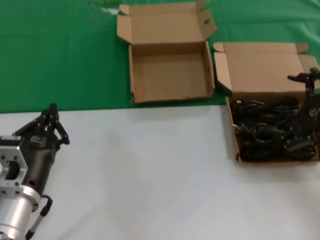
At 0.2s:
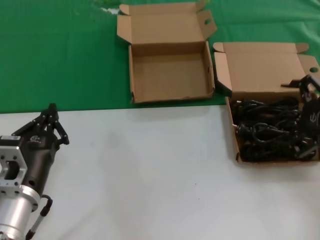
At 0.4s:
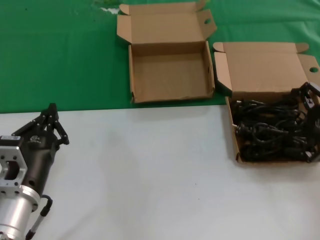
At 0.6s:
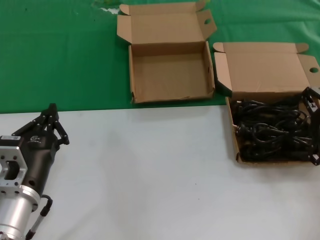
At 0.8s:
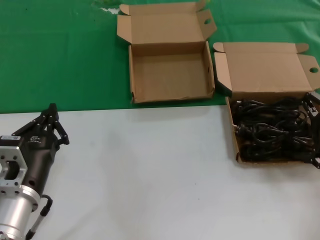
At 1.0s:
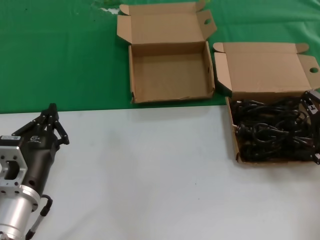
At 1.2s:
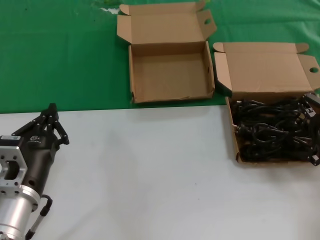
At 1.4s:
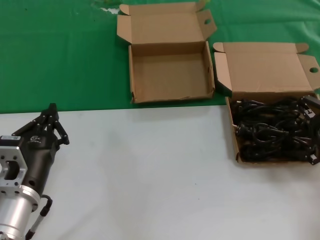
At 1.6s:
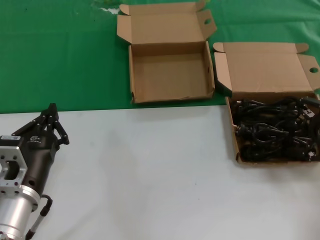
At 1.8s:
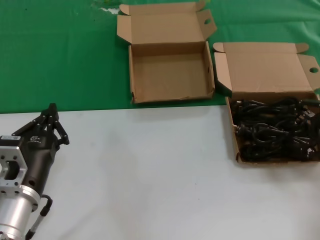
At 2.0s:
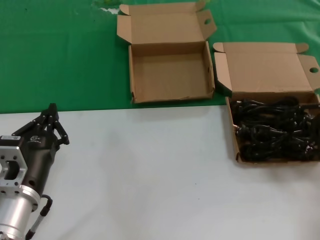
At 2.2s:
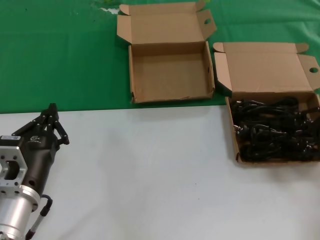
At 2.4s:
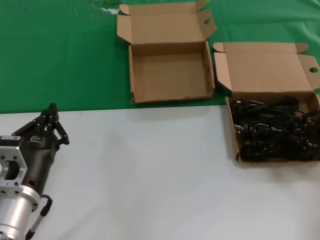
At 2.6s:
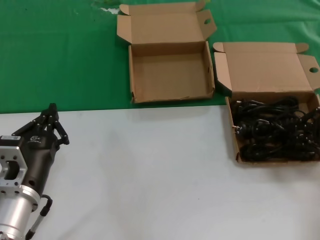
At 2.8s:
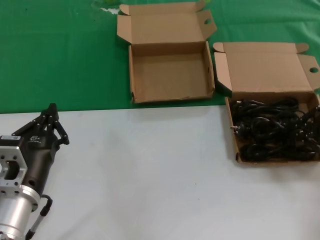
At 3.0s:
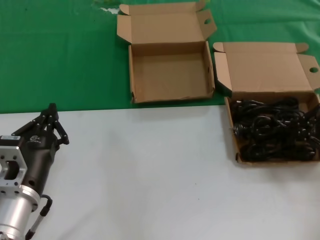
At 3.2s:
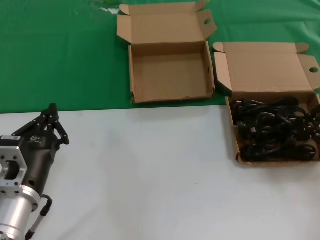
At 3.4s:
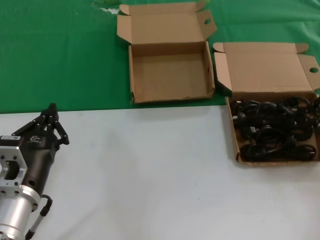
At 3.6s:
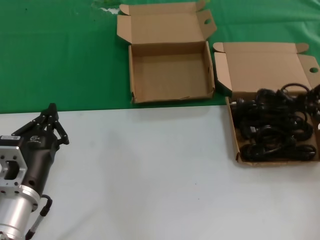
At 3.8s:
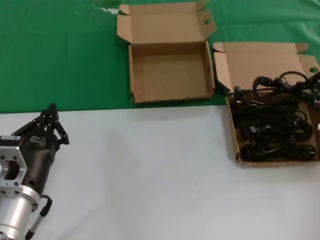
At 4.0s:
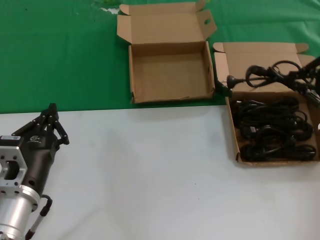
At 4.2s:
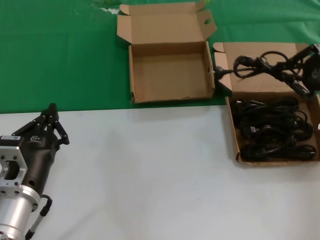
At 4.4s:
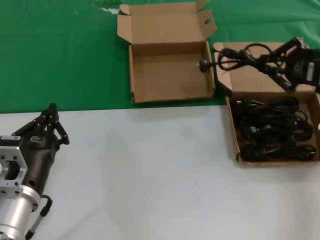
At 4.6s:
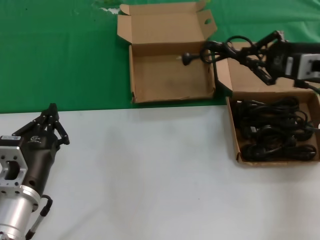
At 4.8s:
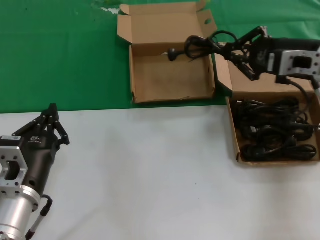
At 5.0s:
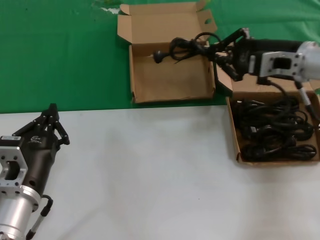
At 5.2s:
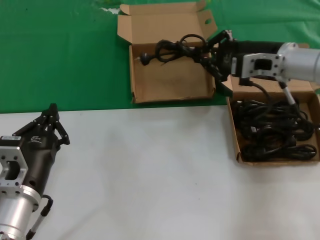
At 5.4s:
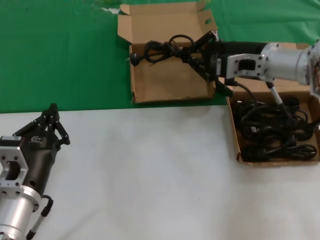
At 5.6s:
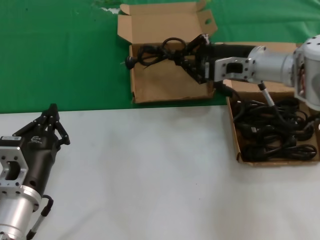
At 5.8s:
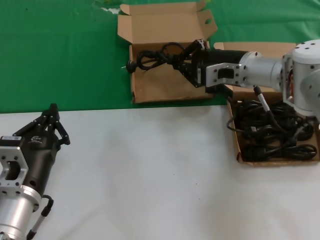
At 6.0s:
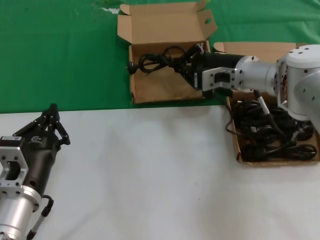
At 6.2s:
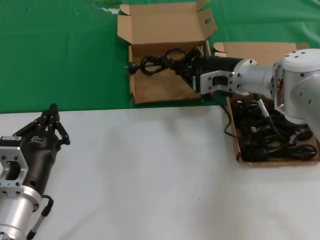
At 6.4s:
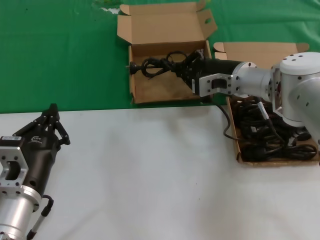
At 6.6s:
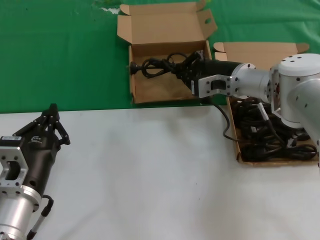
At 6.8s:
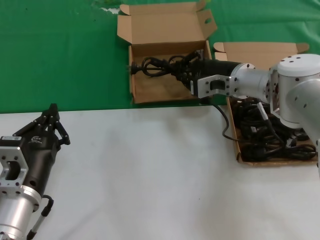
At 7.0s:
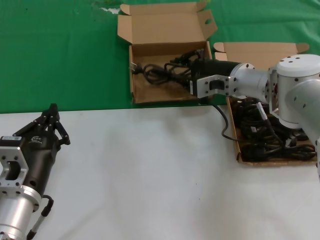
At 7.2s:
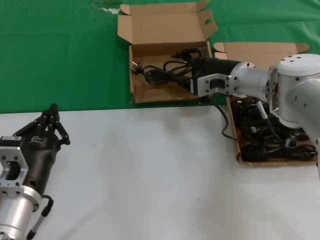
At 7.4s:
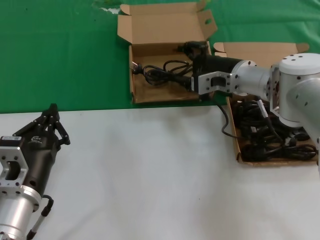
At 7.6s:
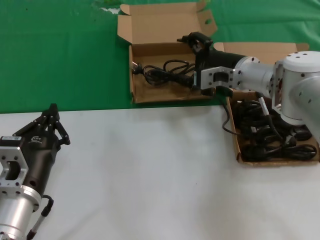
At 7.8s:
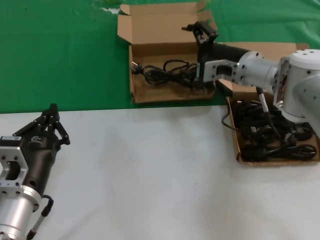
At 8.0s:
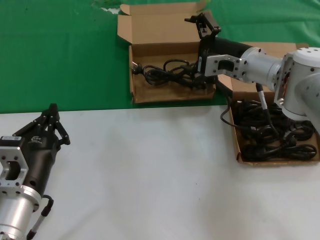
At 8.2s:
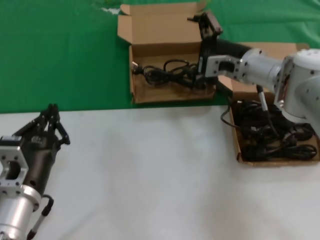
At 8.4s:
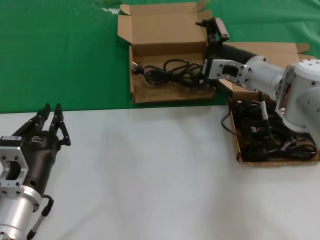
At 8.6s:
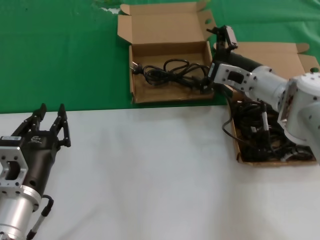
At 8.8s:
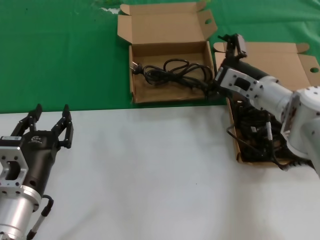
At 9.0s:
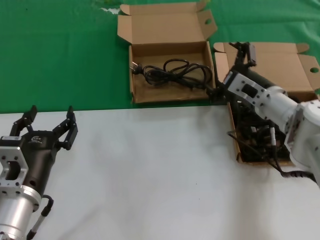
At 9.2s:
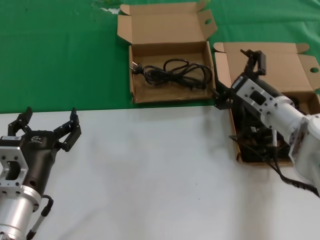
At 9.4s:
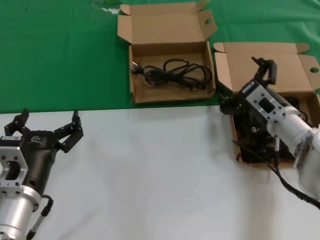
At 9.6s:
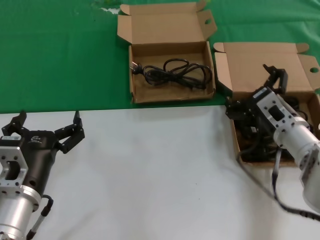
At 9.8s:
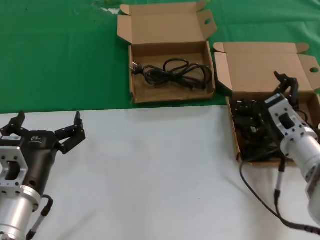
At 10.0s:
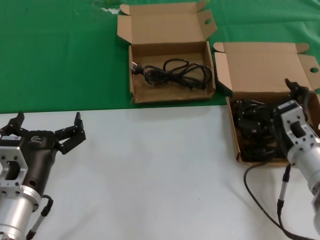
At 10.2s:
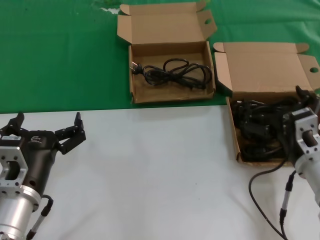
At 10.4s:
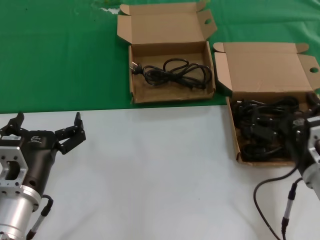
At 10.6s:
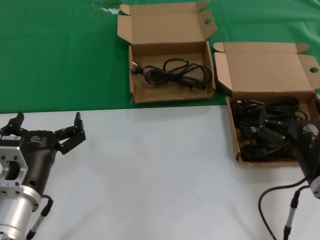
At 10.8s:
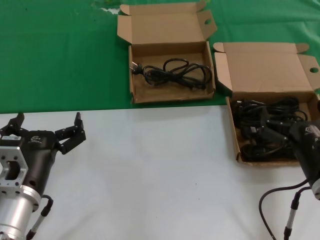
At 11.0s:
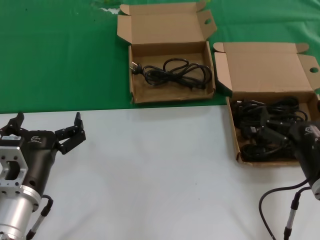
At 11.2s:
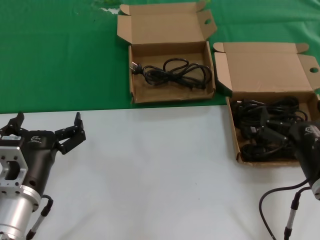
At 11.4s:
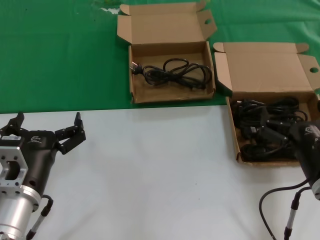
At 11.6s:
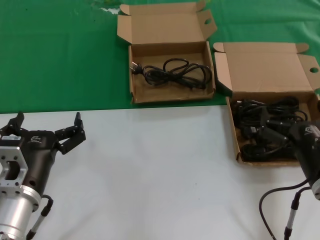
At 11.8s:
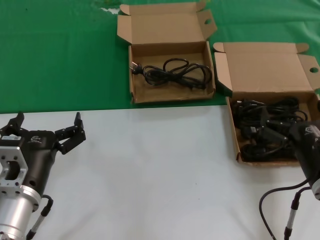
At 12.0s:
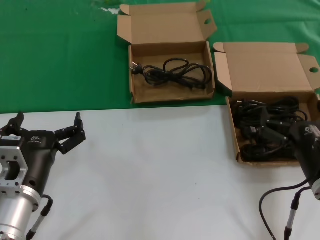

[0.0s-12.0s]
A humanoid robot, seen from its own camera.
Task of the whole recording: take the parts from the box containing them and put them into an empty box.
Step, 0.0s to 2.8s: Grasp the data cable.
Step, 3.0s to 7.0s: Place the data cable in the another box.
0.0s to 1.6s: The right hand is displaced forward by some 5 cm.
3.0s to 4.4s: The right hand shifts some 10 cm upward and to the left.
4.4s to 6.0s: The right hand moves to the left, forward and downward, approximately 20 cm.
6.0s to 7.6s: The hands move only a little.
7.6s to 9.0s: The right hand heads downward, covering roughly 5 cm.
9.0s to 10.4s: The right hand goes roughly 15 cm backward.
10.4s to 12.0s: There are only small adjustments of the hands.

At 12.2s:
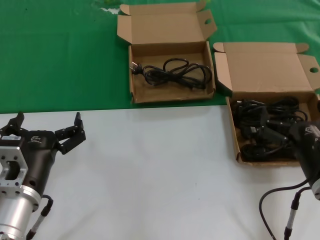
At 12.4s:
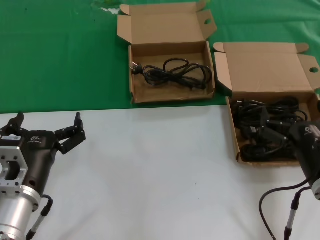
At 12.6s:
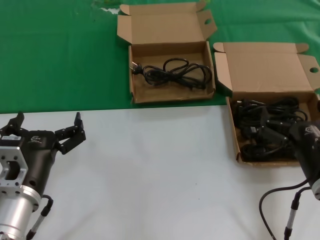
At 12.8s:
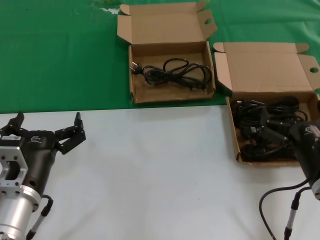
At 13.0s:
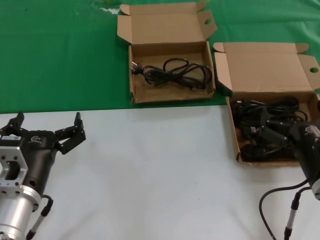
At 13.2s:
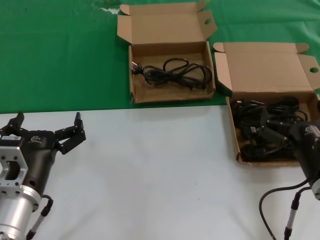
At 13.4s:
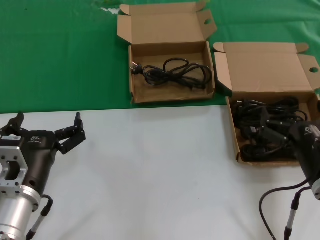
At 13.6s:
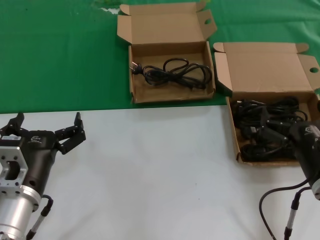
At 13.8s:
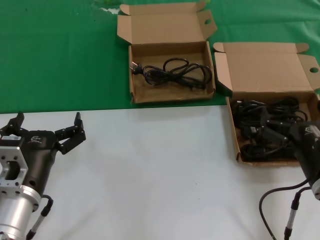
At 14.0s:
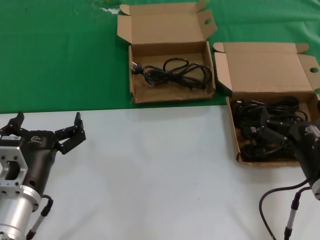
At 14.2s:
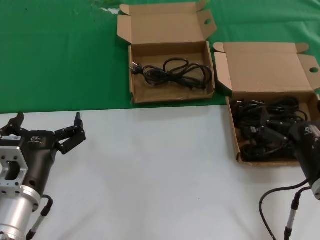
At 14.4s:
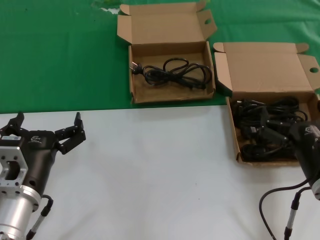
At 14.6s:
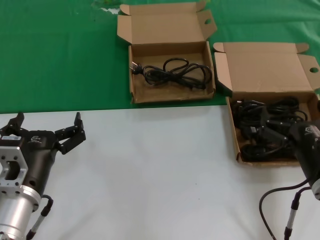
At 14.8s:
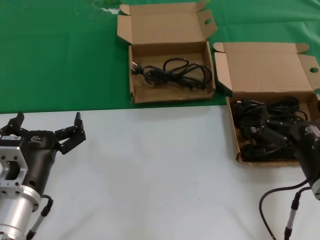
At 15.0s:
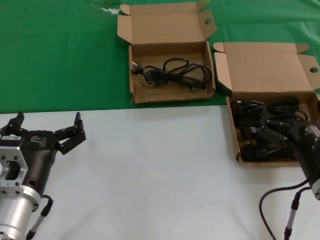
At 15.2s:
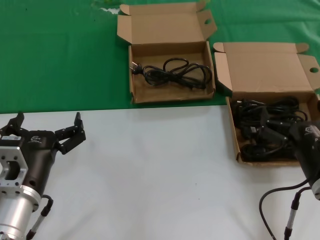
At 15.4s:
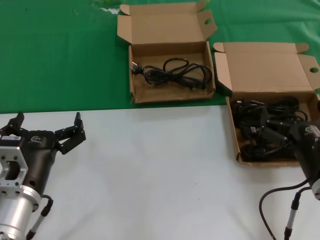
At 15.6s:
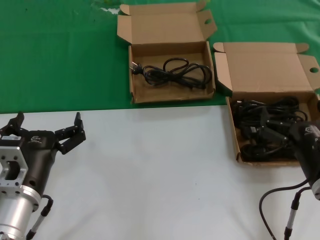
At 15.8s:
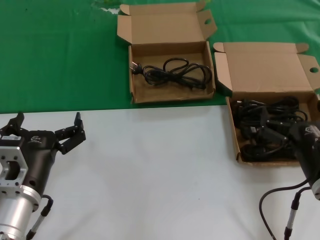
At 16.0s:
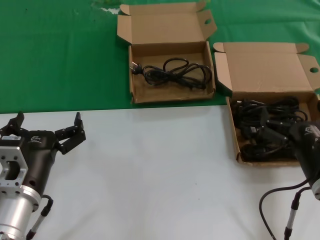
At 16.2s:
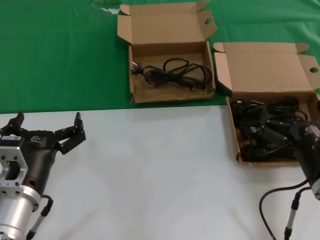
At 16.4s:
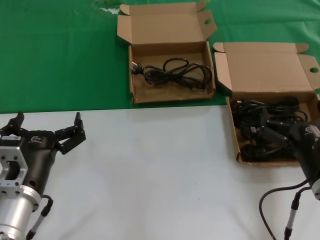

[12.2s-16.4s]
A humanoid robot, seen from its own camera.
Task of the whole recording: take the parts from the box containing them and put them into an empty box.
12.2s to 16.4s: Both hands stay put.
